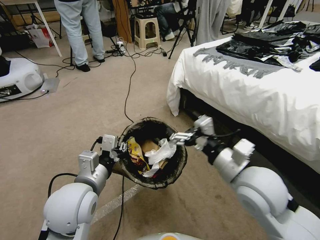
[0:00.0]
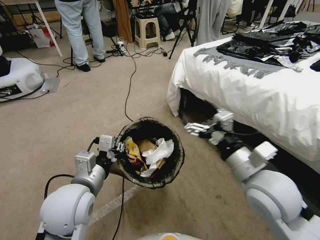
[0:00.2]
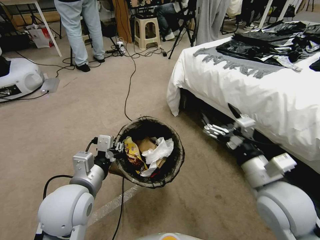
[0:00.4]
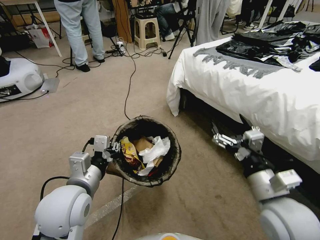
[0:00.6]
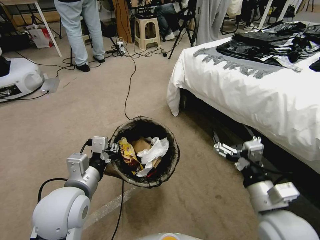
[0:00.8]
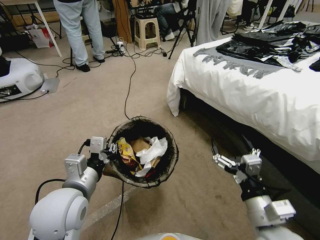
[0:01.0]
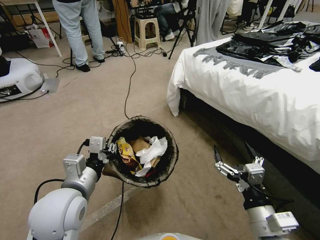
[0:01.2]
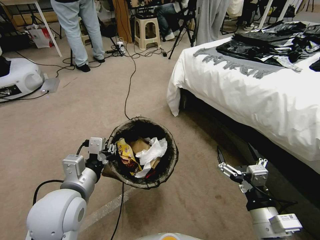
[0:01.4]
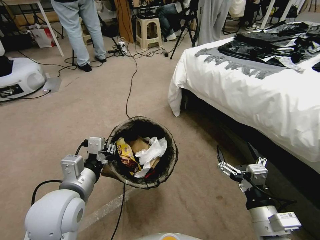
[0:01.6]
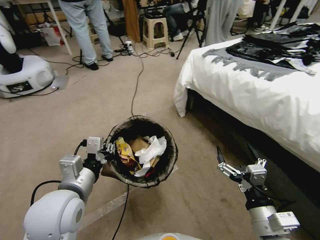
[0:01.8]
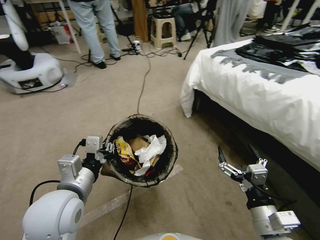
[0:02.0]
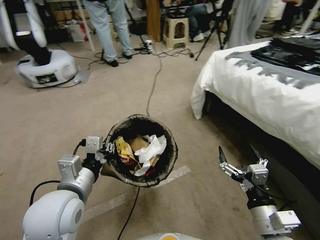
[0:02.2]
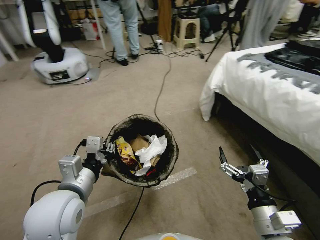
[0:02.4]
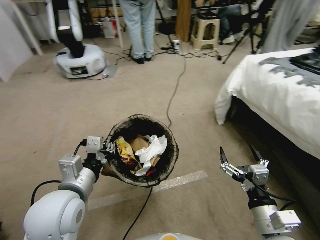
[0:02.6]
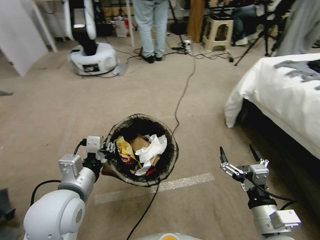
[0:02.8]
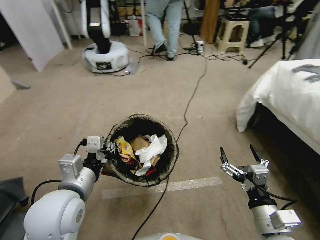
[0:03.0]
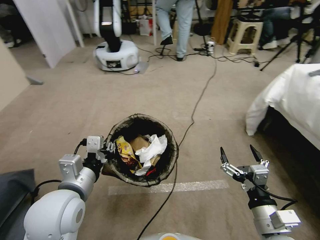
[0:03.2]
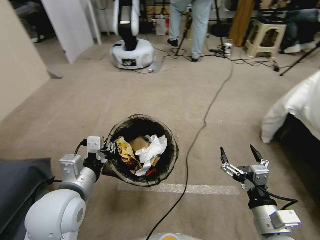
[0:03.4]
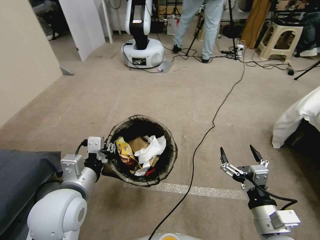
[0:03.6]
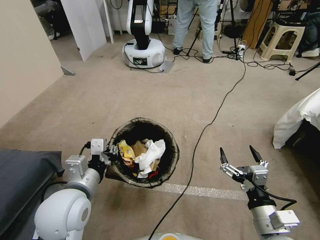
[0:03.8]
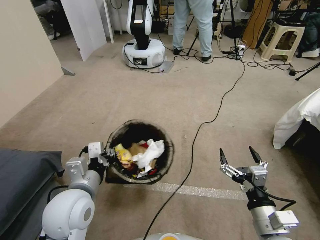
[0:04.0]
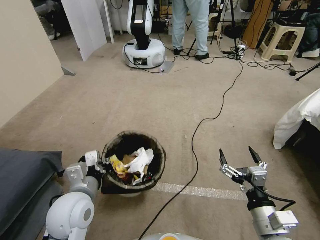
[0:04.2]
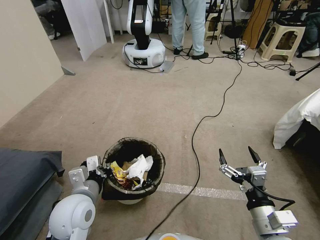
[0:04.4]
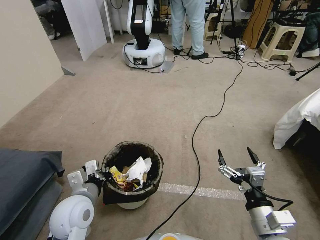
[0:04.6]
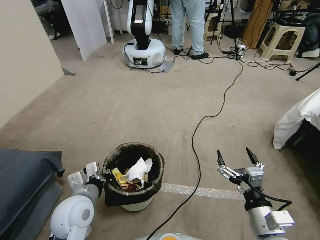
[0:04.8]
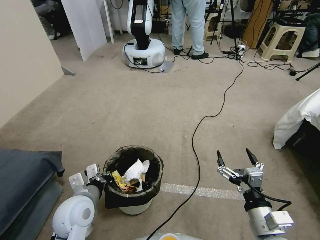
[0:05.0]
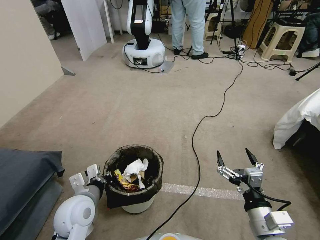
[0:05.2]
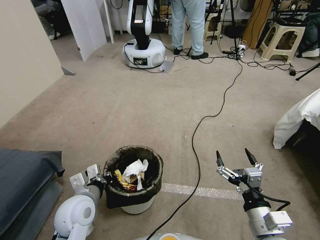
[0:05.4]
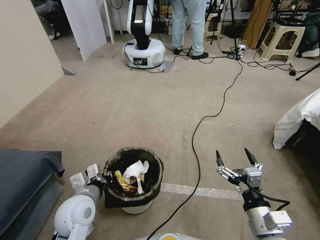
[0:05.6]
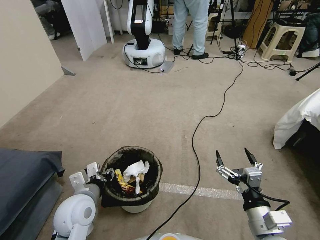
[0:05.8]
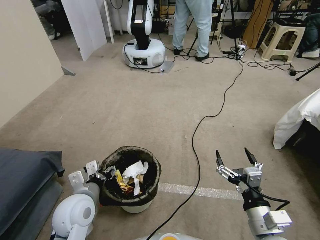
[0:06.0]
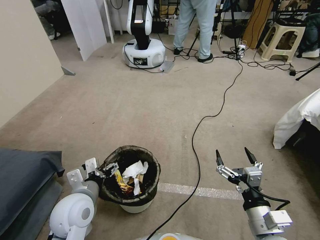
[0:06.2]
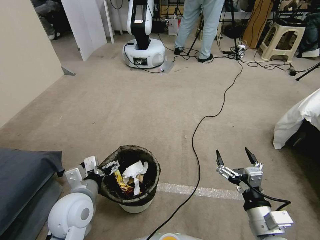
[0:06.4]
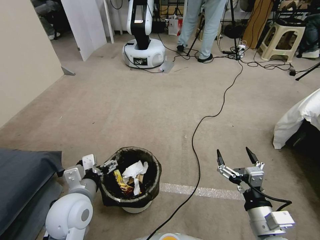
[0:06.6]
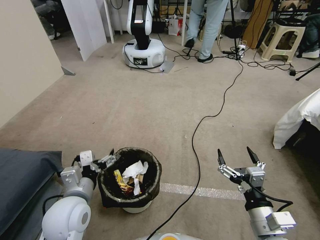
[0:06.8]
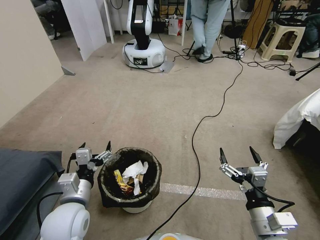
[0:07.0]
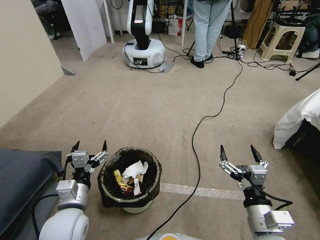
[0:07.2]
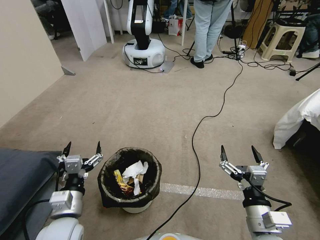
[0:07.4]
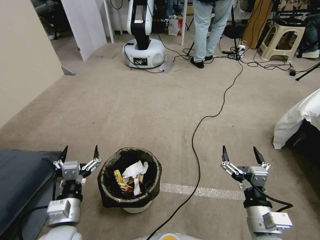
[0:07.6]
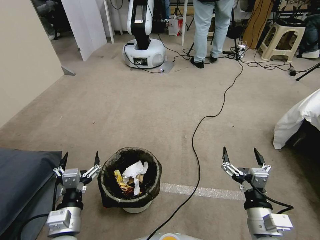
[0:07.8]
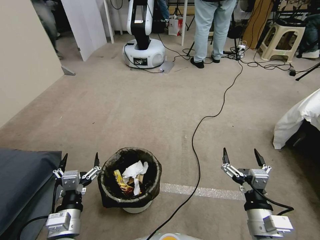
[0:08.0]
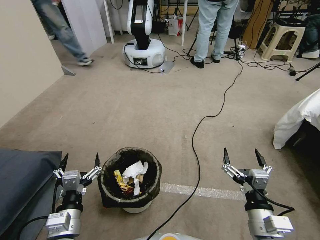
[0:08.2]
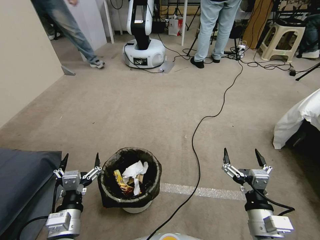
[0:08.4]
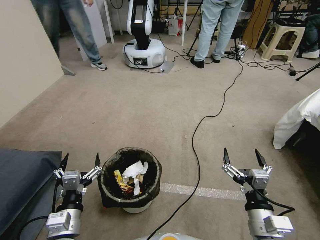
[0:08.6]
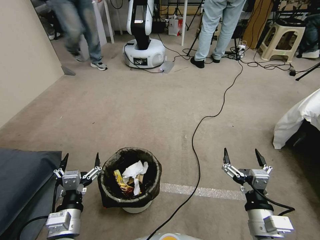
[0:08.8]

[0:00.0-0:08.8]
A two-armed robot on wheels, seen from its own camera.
Task of the whole recording: Pick up the trash bin, then pick up the garbage from the floor and place it into the trash bin.
0:00.0 to 0:01.4: The right gripper moves backward and downward, roughly 15 cm.
0:03.0 to 0:04.4: The left gripper goes approximately 10 cm downward.
0:04.4 to 0:05.8: The left gripper opens up.
0:05.8 to 0:07.4: The left gripper goes roughly 5 cm backward, and opens up.
0:07.4 to 0:08.8: There are only small adjustments of the grippers.
